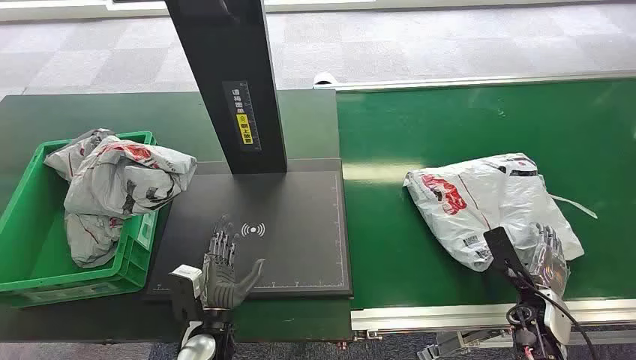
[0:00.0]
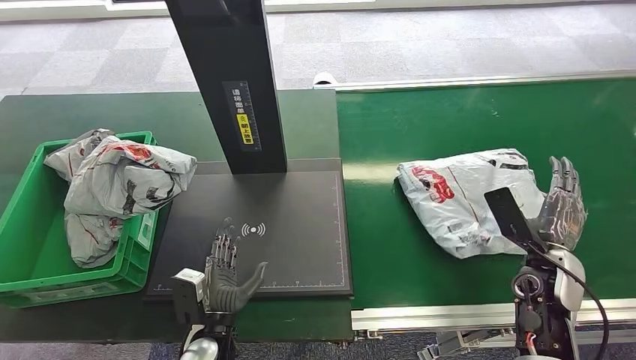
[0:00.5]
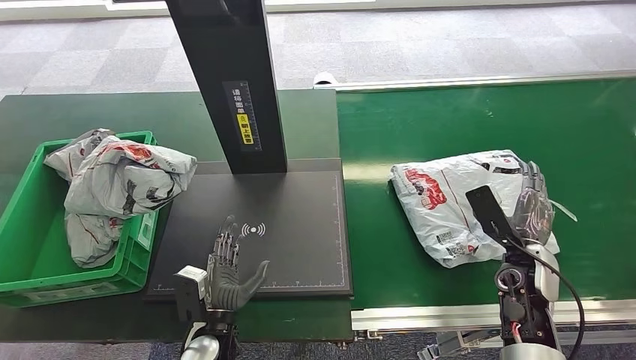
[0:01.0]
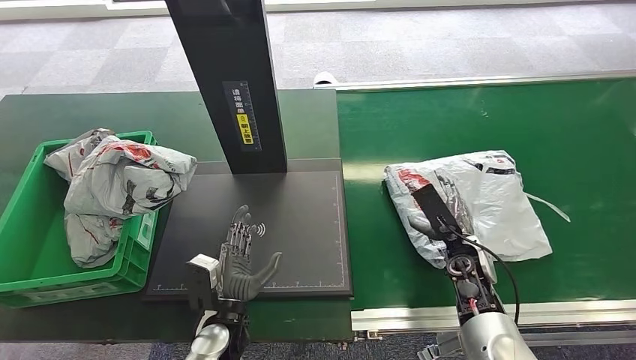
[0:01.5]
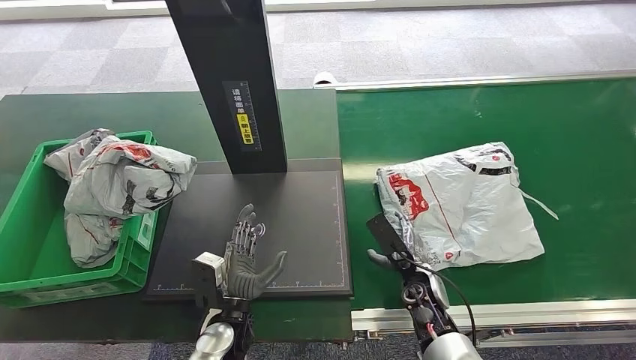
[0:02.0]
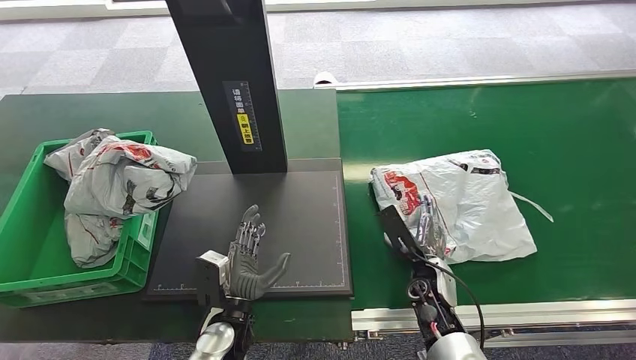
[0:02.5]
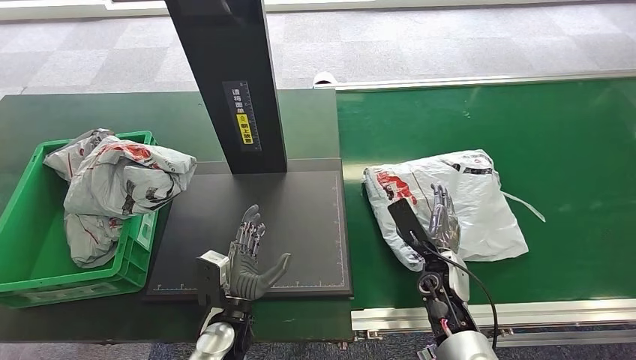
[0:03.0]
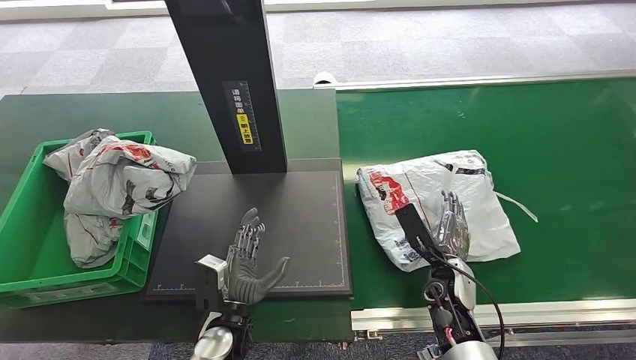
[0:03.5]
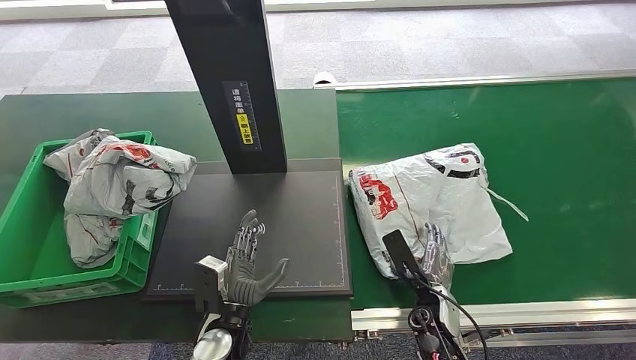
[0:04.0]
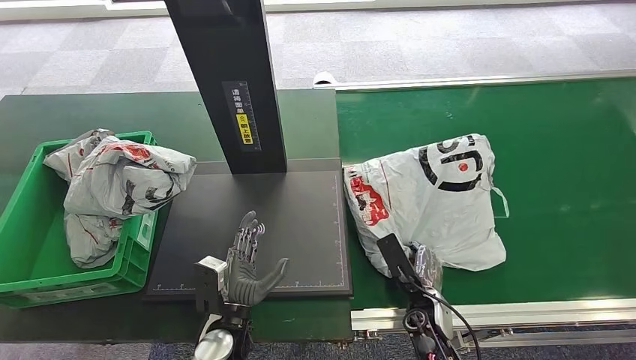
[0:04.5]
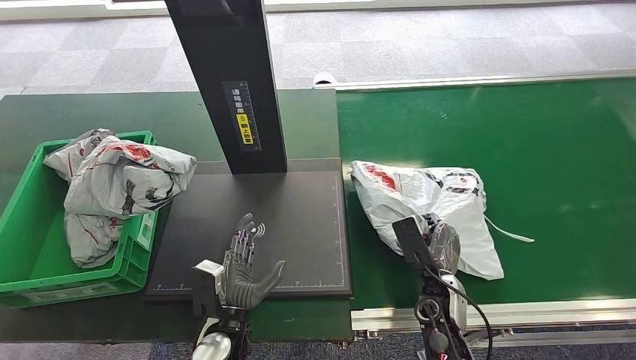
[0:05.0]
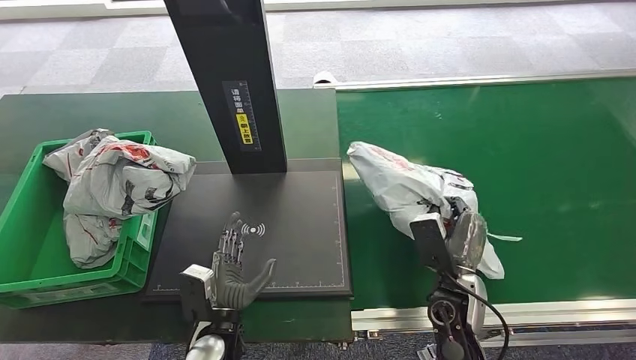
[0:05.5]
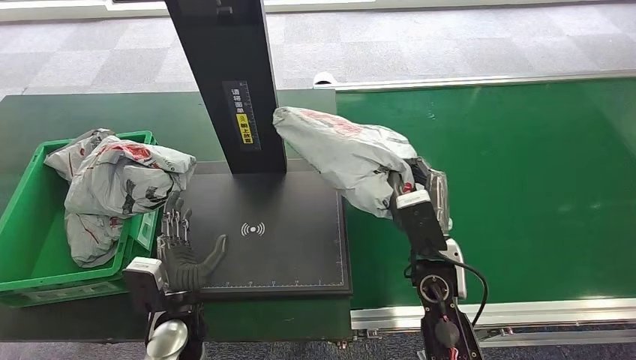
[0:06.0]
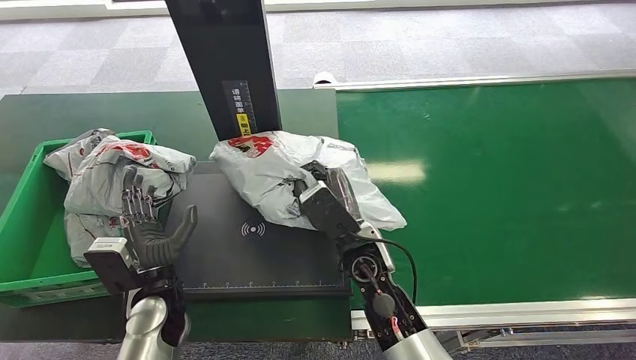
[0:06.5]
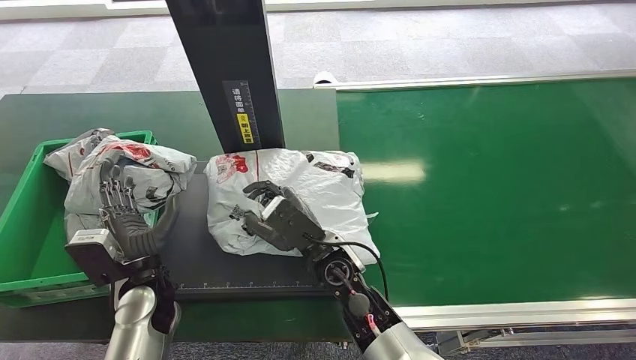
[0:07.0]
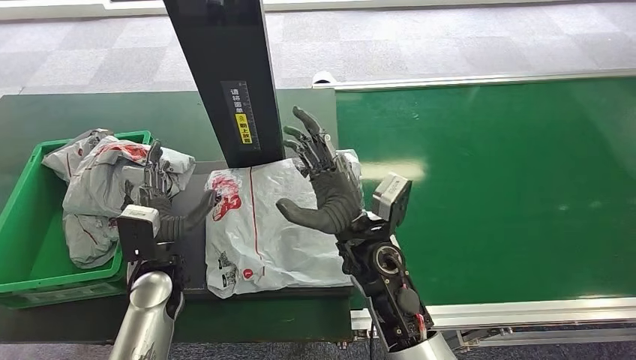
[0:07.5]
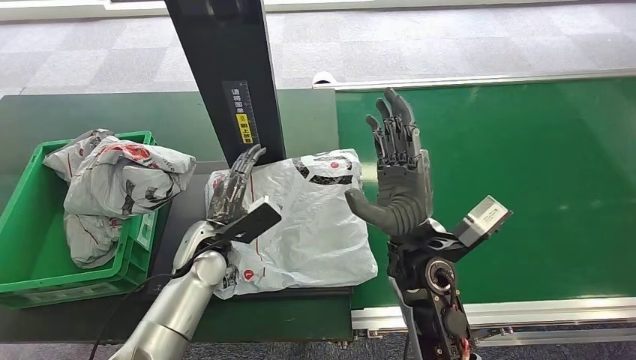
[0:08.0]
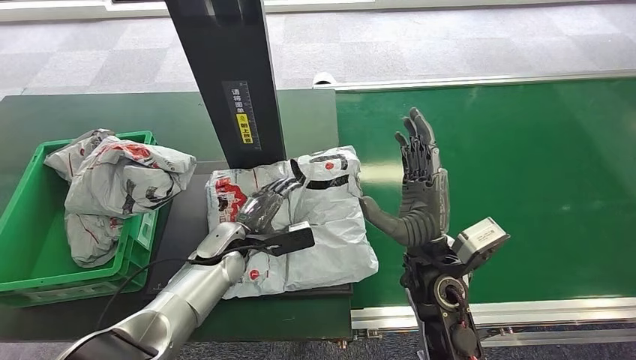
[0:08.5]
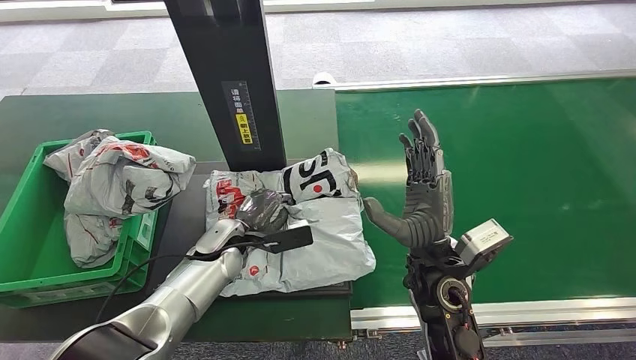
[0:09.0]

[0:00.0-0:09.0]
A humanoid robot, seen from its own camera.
Step, 0:00.0 to 0:05.5: Pick up the package from the conveyor belt.
Step, 0:06.0 to 0:08.5: Place the package onto the inbound machine.
0:02.0 to 0:04.5: The right hand changes place by about 5 cm.

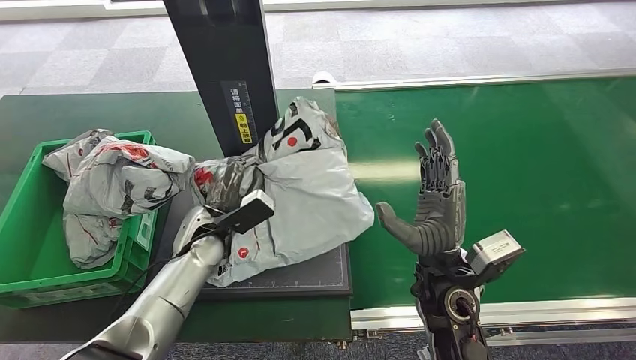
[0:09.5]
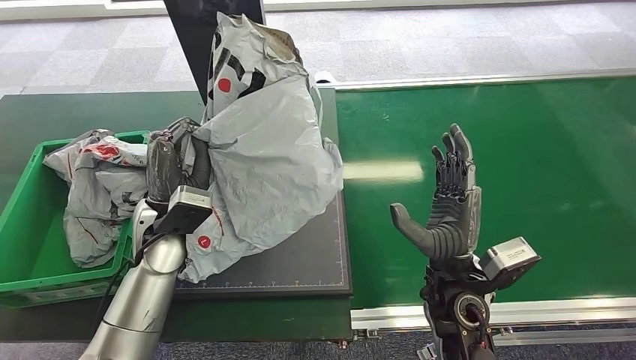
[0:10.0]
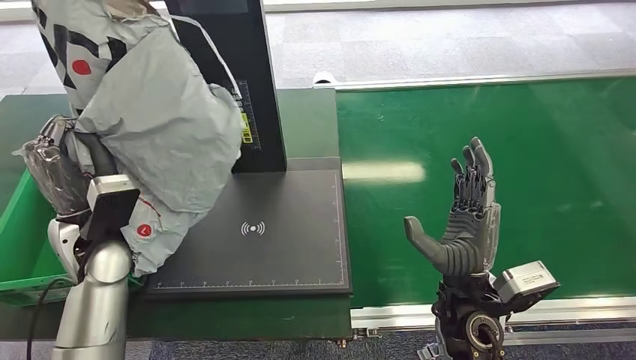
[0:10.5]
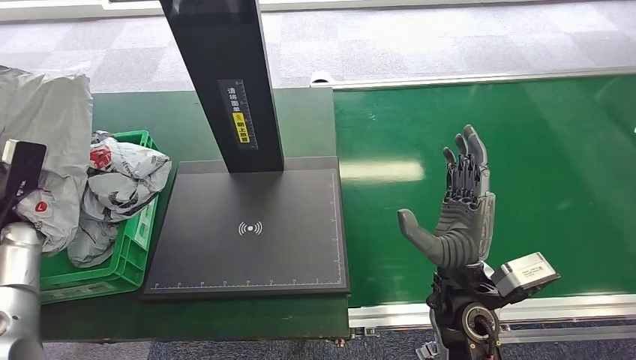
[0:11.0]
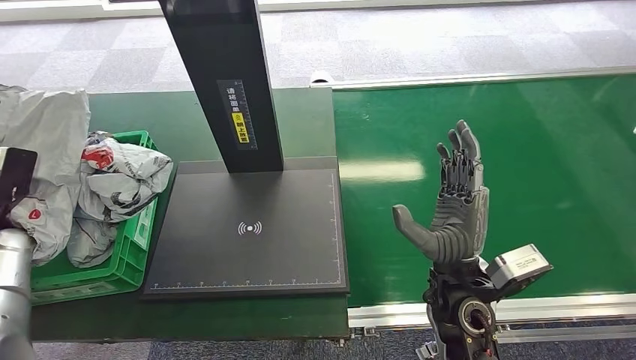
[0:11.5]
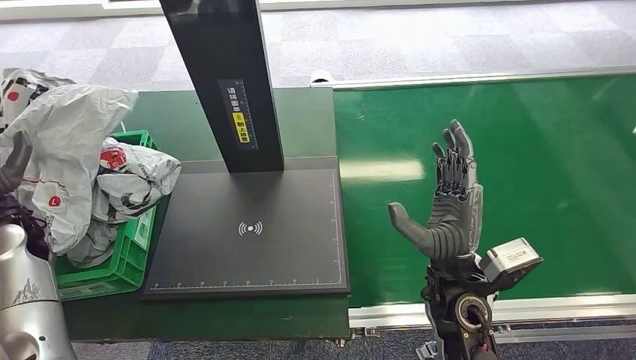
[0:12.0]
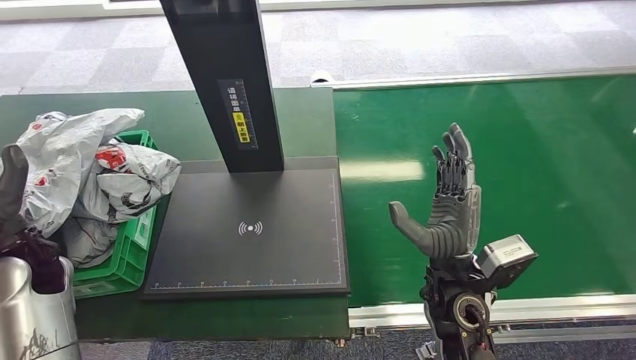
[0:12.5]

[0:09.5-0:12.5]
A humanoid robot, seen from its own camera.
Step, 0:10.5 to 0:12.5: Place the package into the parcel locker.
0:11.0 to 0:12.5: The left hand is displaced to the right and upward by about 15 cm.

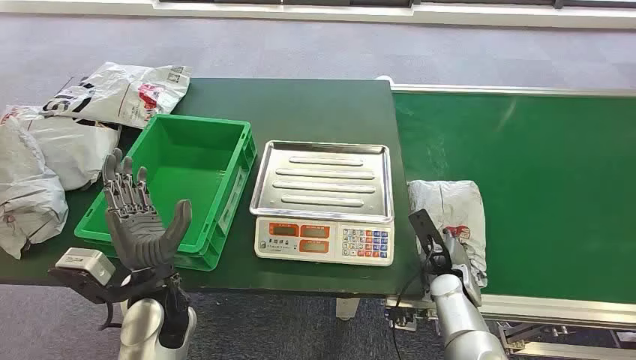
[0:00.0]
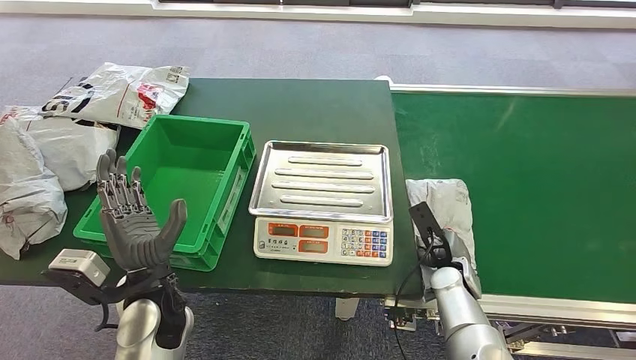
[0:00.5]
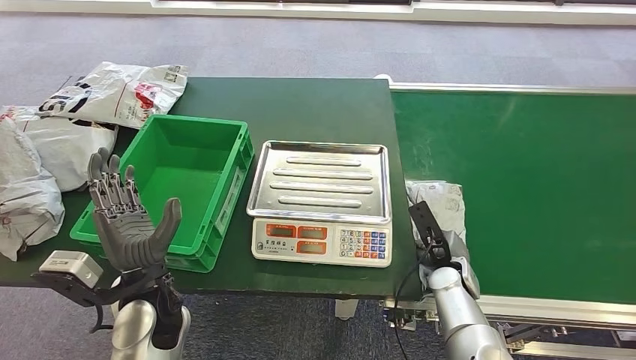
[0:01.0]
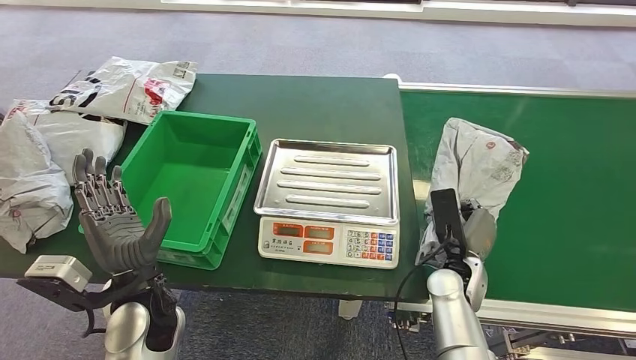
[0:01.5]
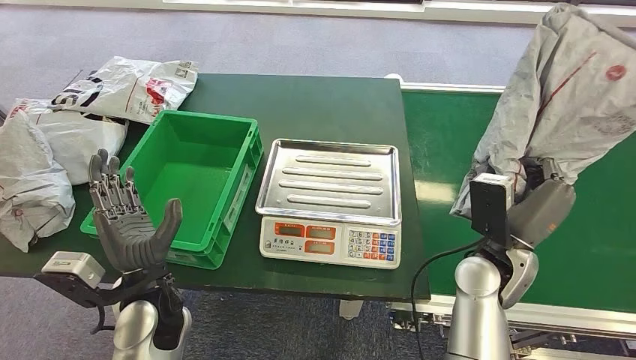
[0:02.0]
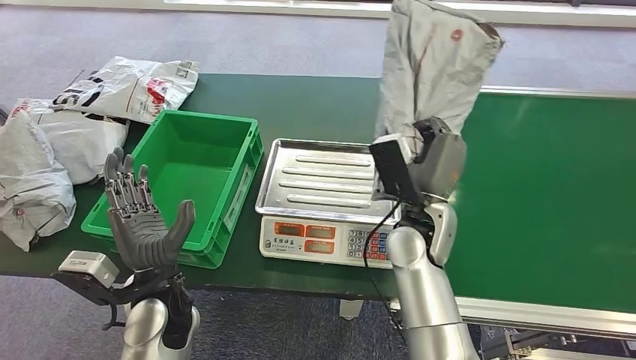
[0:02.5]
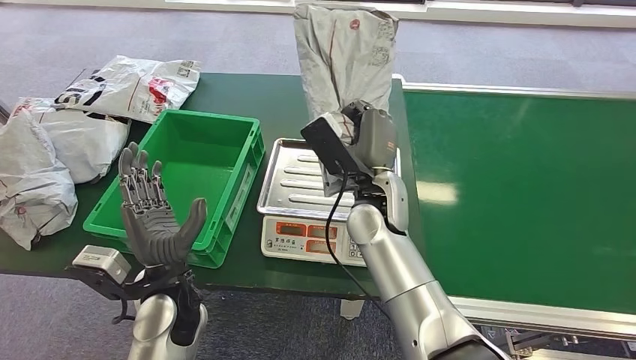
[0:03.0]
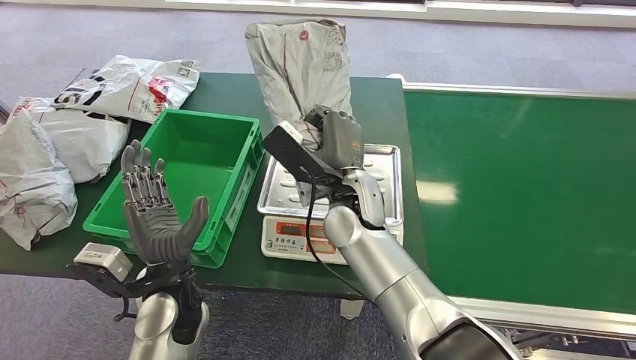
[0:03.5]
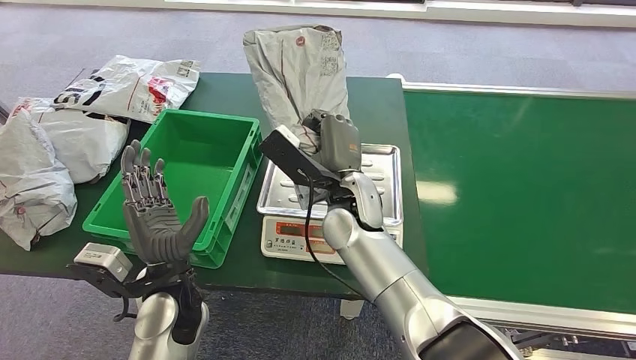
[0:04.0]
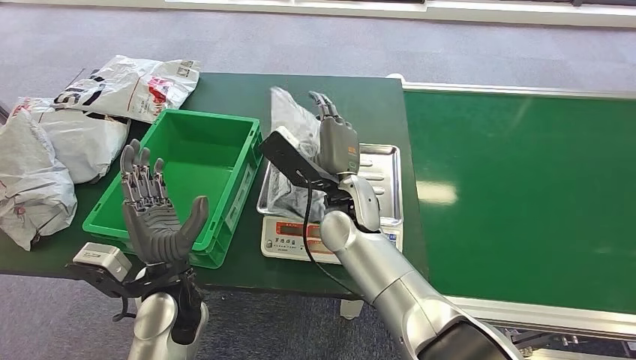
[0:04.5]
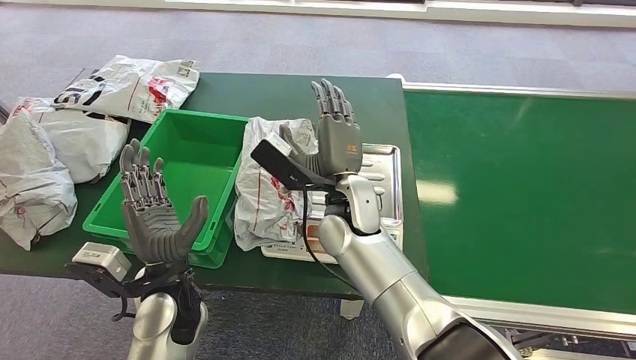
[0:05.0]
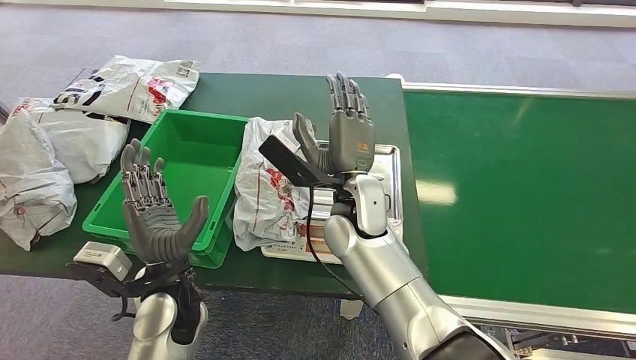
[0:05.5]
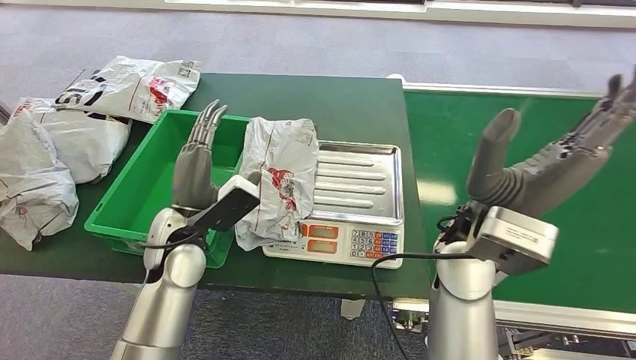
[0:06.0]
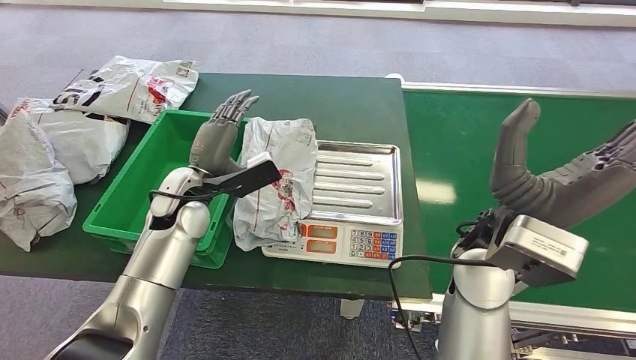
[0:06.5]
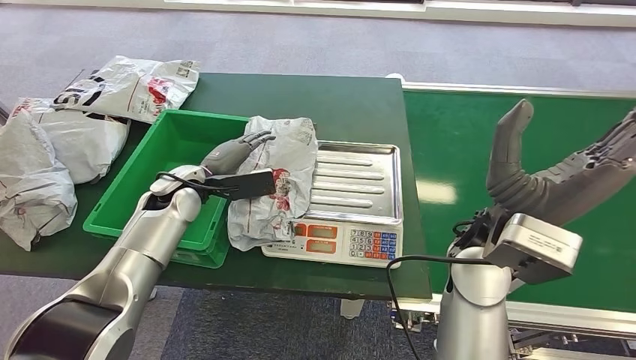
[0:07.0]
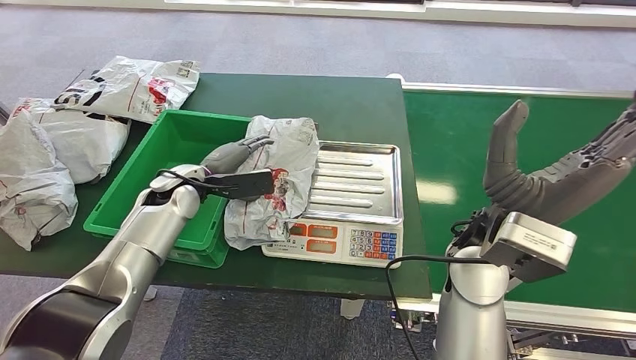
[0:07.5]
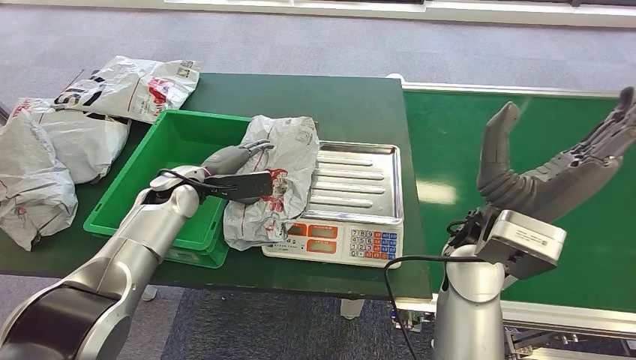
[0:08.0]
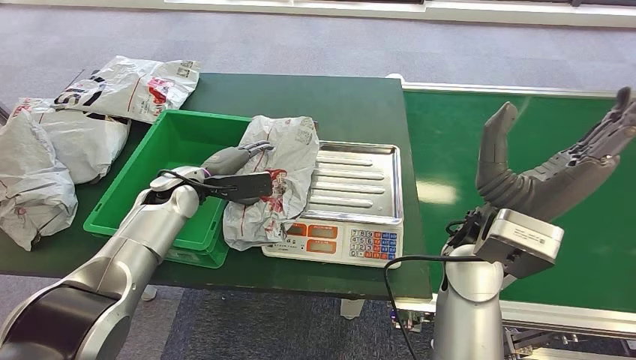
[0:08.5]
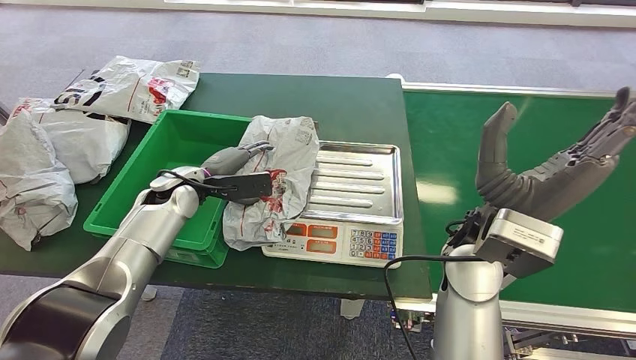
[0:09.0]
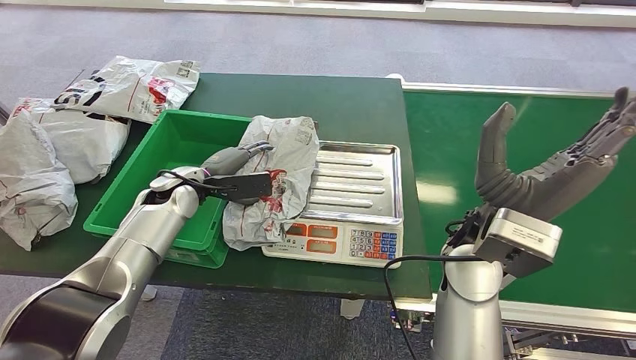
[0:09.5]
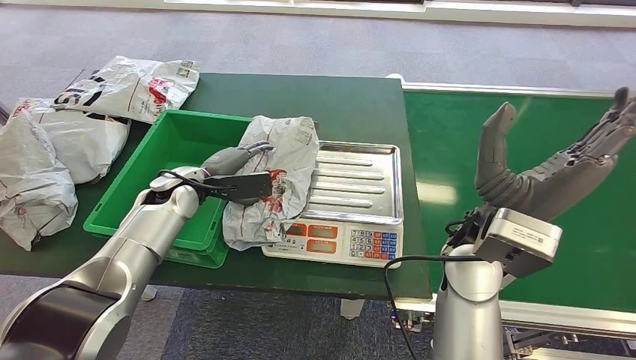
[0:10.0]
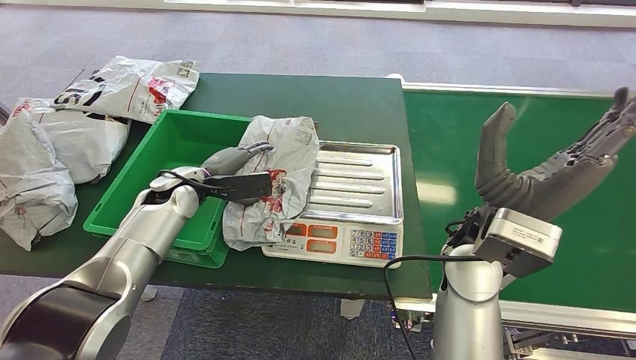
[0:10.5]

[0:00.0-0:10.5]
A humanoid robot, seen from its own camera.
Step, 0:00.0 to 0:02.5: Pick up the package from the conveyor belt.
Step, 0:04.0 to 0:06.0: Place the package onto the inbound machine.
0:06.5 to 0:08.5: The left hand goes approximately 5 cm to the left.
0:08.5 to 0:10.5: Neither hand changes place.
